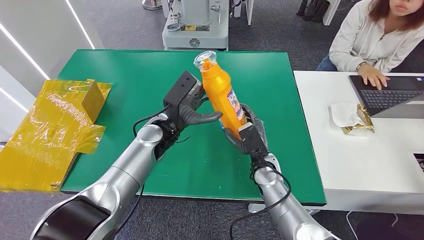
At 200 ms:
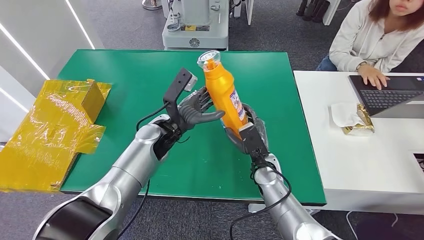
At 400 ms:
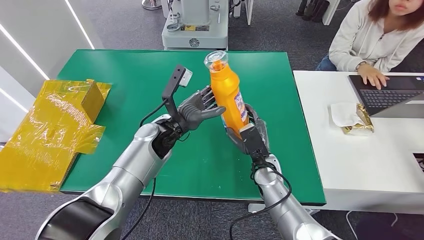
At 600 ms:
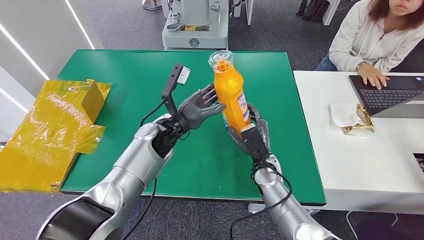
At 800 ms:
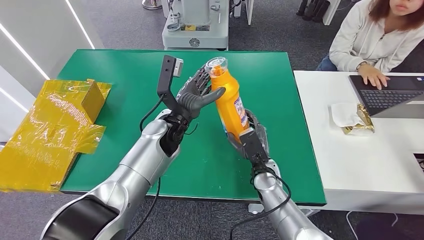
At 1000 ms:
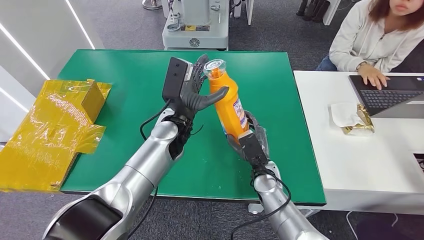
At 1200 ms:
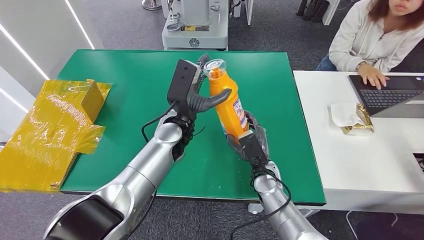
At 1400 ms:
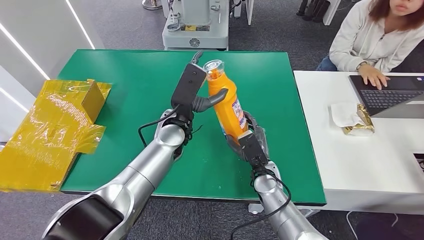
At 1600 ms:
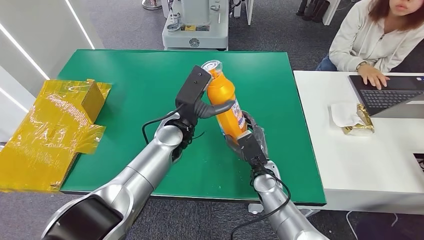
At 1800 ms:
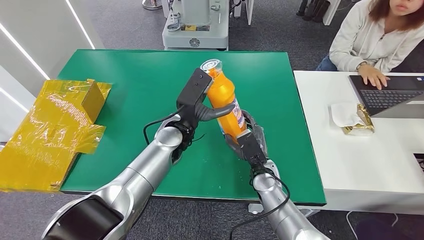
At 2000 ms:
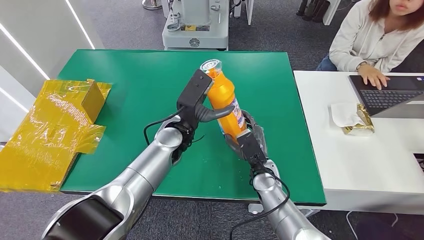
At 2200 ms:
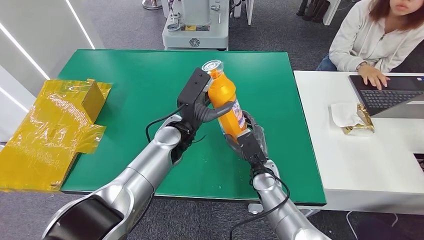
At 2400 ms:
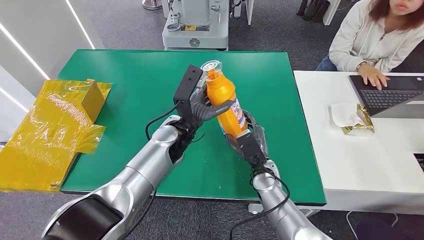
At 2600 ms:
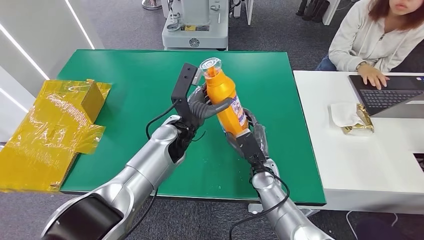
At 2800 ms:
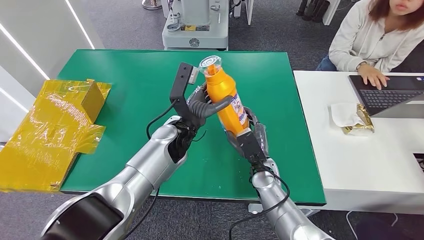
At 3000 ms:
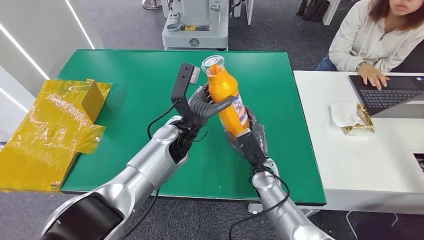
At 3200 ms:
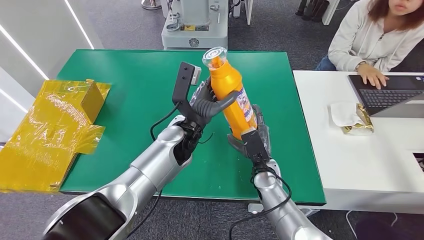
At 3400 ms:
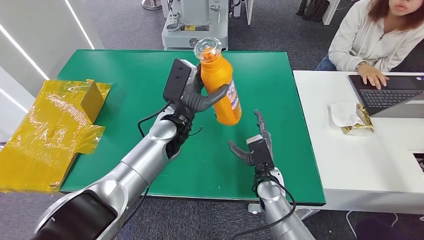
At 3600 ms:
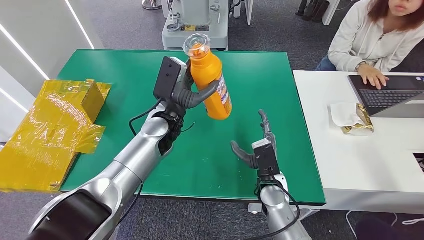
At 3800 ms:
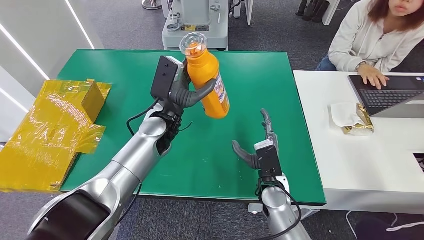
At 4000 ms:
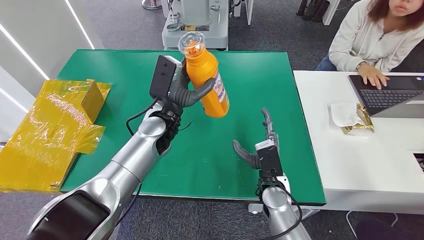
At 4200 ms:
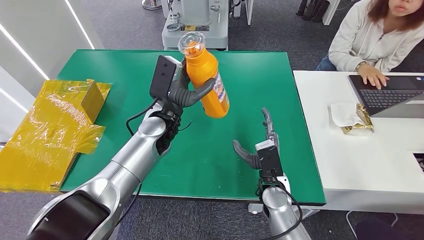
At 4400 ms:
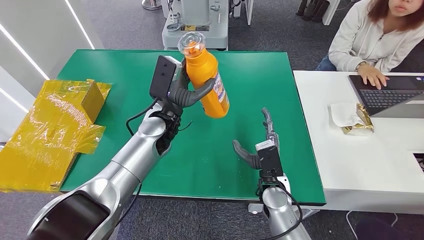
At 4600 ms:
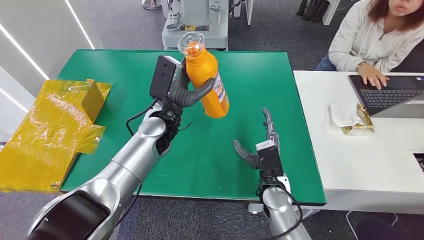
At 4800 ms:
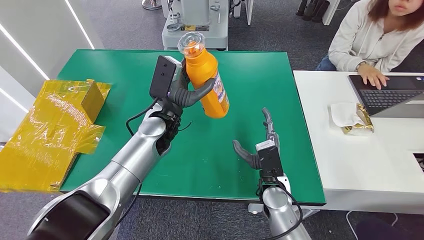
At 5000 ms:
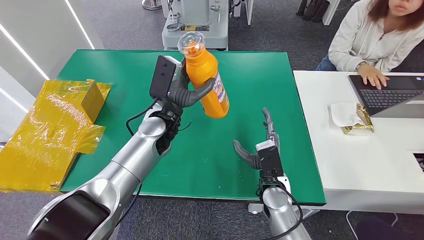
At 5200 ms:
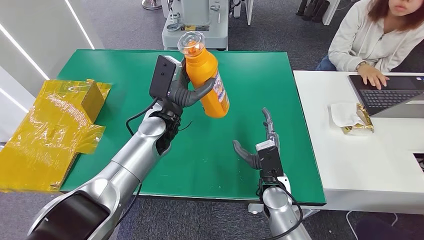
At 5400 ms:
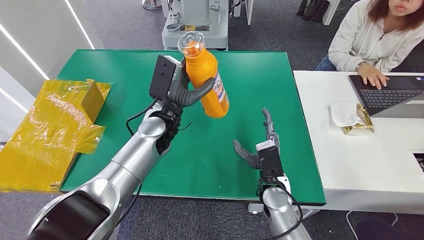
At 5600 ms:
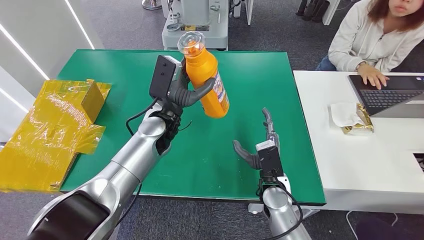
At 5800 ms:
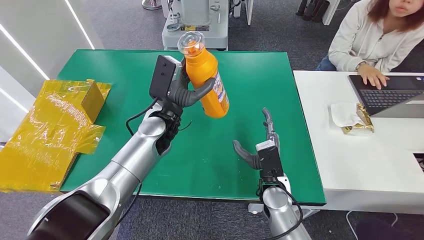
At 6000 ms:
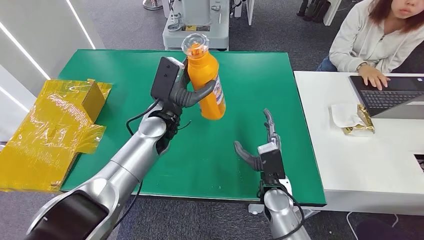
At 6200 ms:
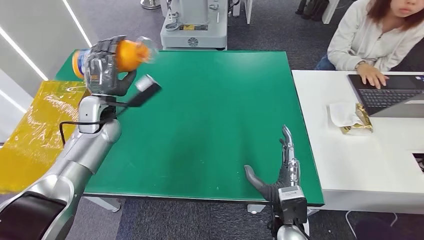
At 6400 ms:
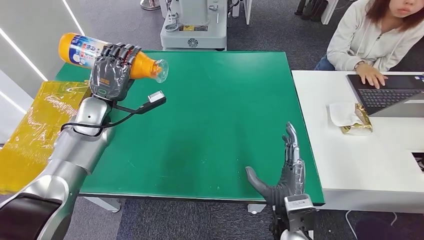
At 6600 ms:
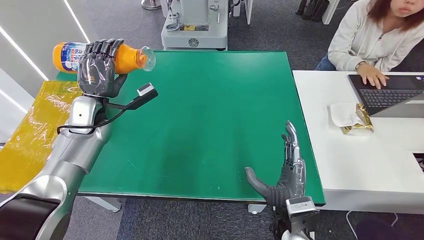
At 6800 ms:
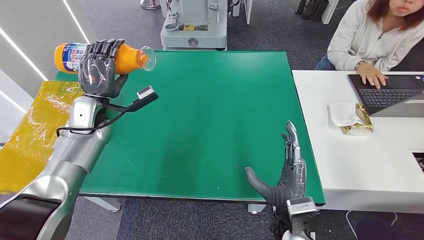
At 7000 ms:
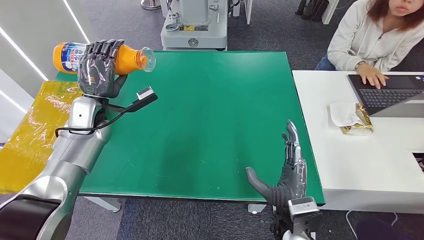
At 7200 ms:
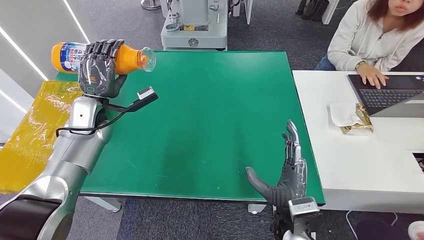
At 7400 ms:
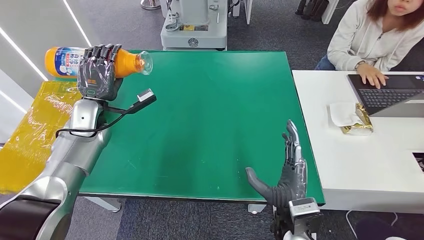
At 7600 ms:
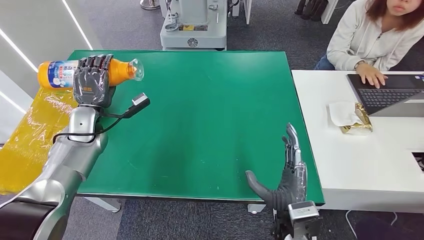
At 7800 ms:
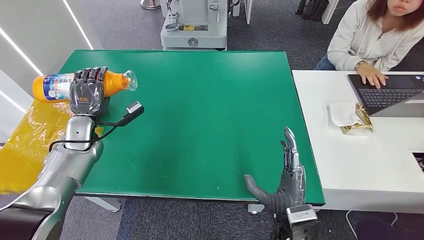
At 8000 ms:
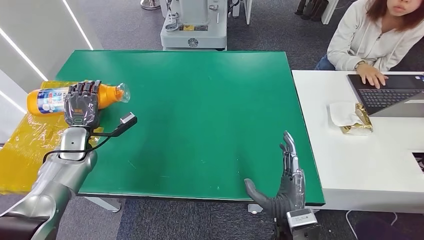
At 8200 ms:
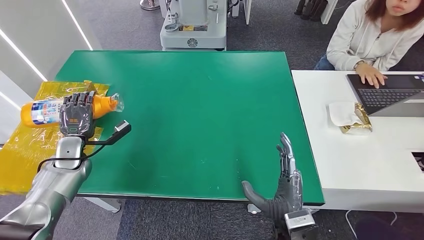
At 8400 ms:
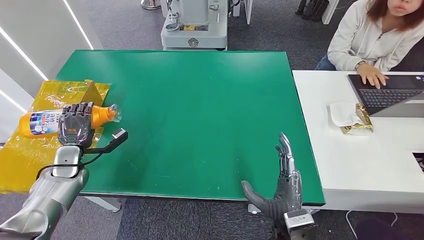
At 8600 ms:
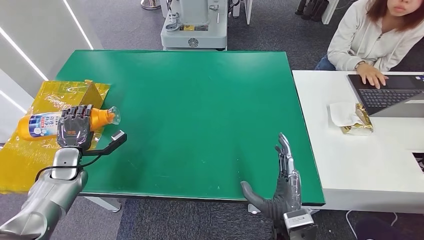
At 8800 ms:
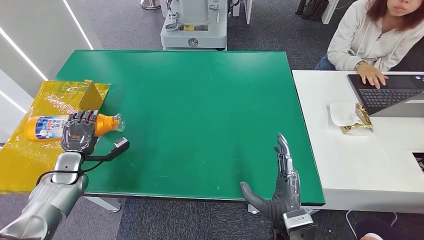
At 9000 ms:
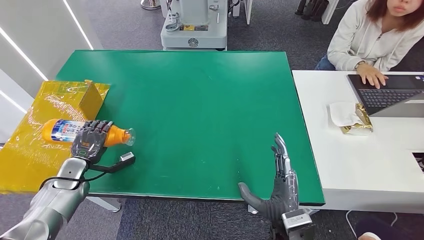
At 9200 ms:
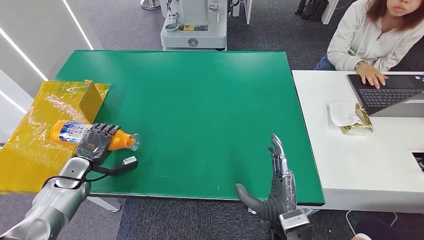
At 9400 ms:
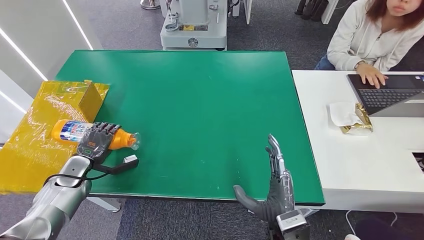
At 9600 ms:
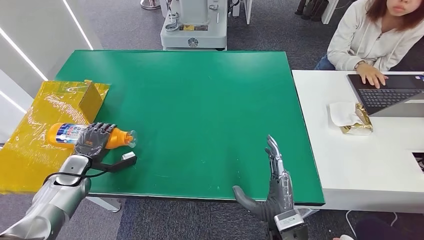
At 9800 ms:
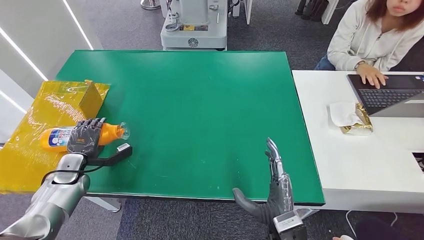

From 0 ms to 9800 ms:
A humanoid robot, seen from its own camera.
Step, from 0 ms to 9800 ms: Turn the bottle to the front side.
From 0 ms to 1400 ms: The left hand moves approximately 5 cm.
From 2800 ms to 4200 ms: The left hand ends up approximately 5 cm from where it was.
From 4200 ms to 5600 ms: The two hands keep their place.
From 7000 ms to 8400 ms: The left hand heads downward, to the left and backward, covering roughly 20 cm.

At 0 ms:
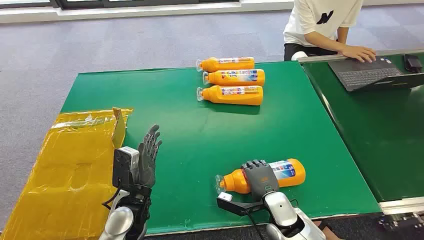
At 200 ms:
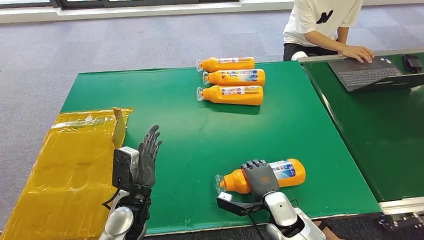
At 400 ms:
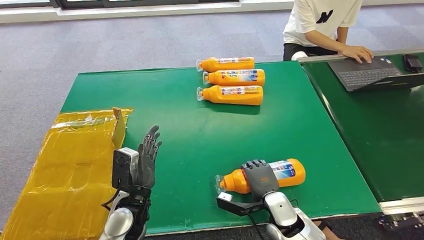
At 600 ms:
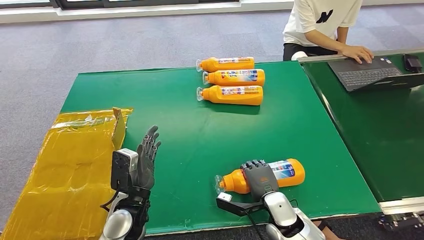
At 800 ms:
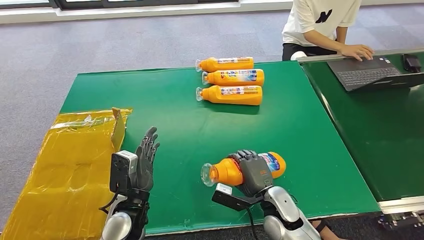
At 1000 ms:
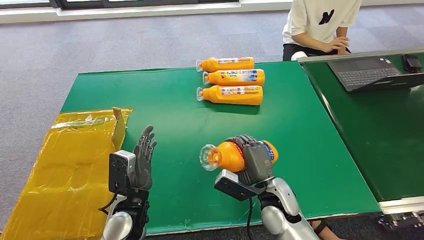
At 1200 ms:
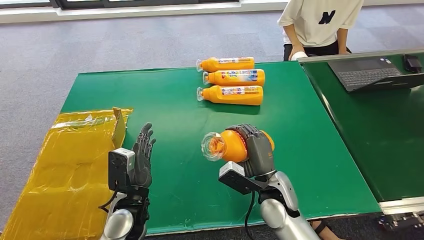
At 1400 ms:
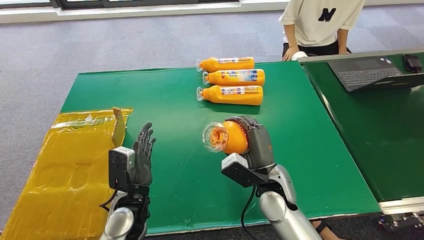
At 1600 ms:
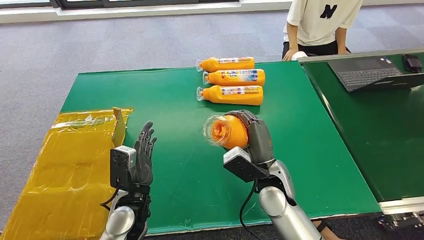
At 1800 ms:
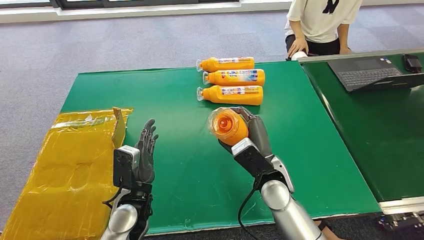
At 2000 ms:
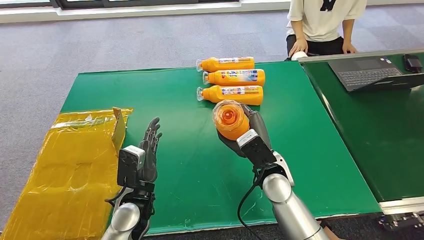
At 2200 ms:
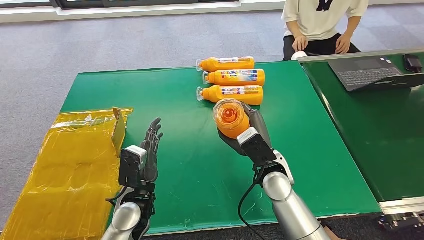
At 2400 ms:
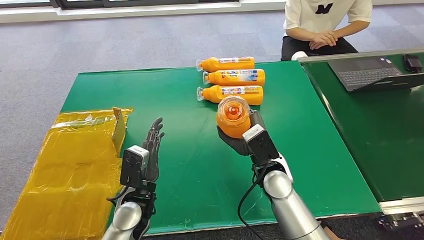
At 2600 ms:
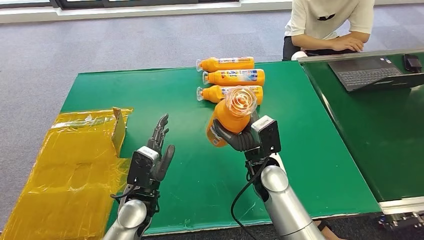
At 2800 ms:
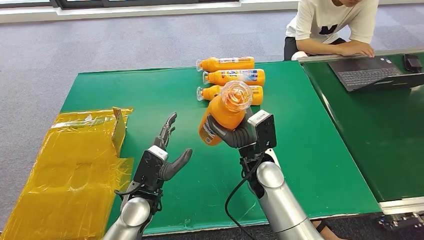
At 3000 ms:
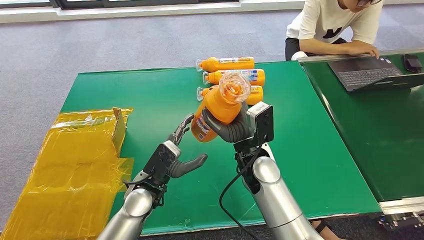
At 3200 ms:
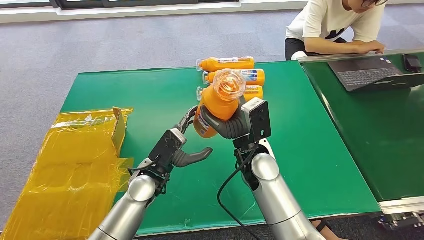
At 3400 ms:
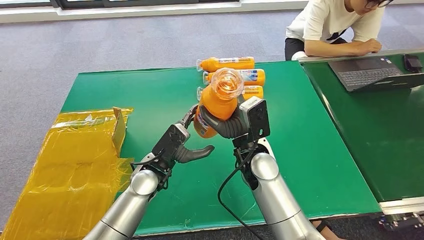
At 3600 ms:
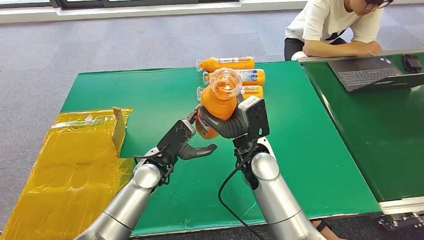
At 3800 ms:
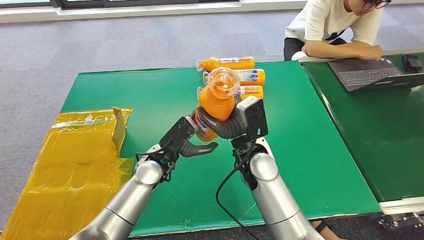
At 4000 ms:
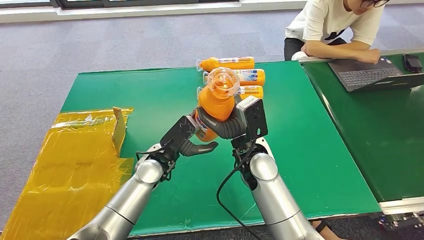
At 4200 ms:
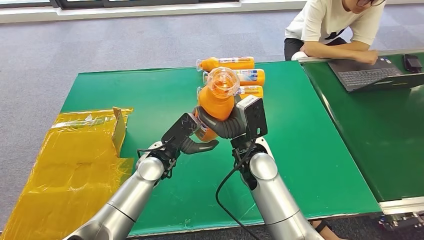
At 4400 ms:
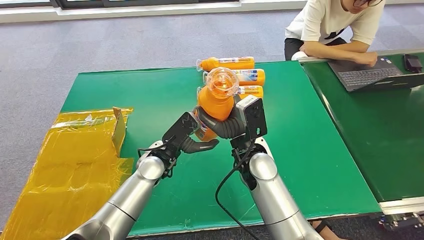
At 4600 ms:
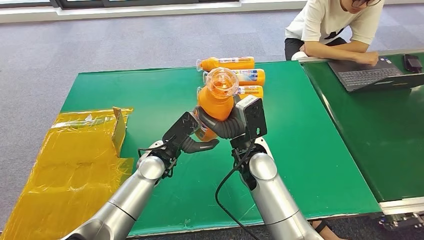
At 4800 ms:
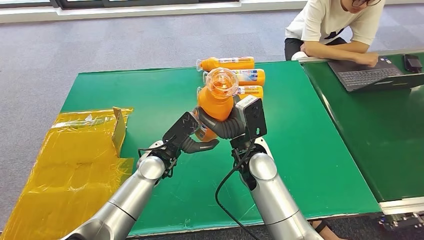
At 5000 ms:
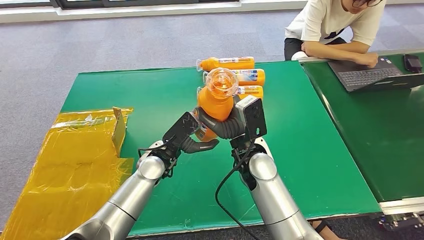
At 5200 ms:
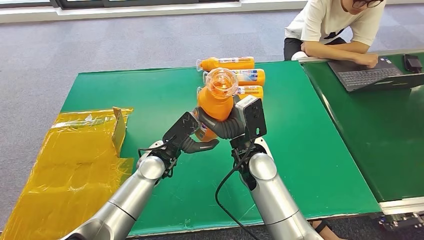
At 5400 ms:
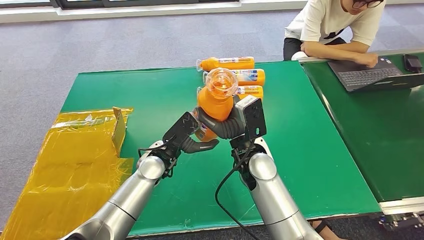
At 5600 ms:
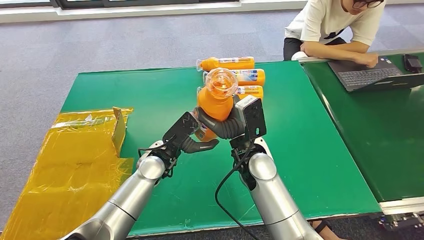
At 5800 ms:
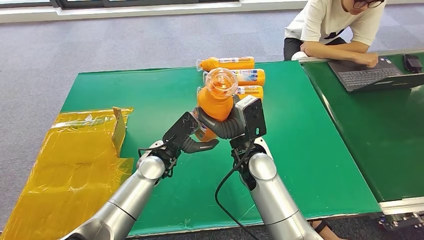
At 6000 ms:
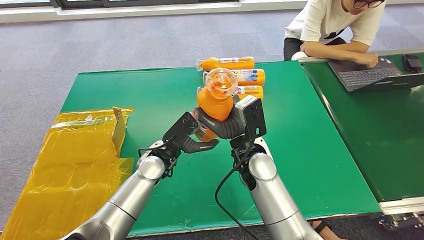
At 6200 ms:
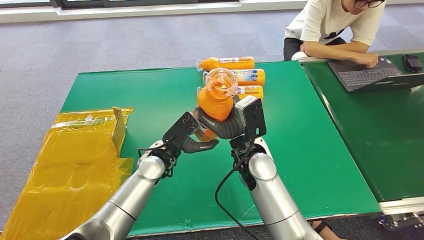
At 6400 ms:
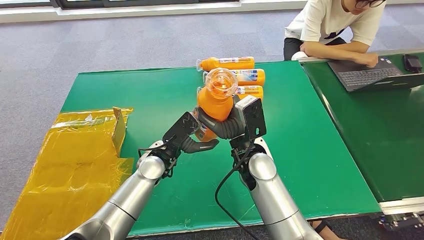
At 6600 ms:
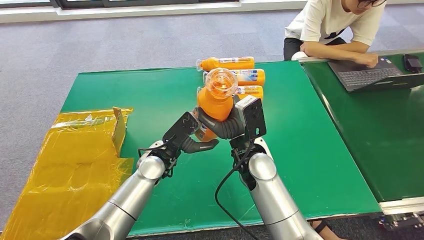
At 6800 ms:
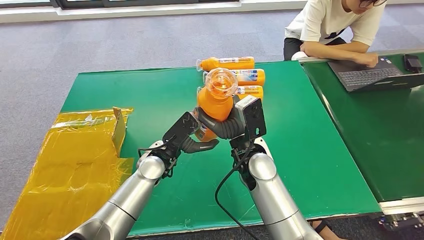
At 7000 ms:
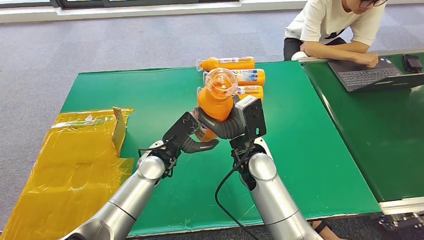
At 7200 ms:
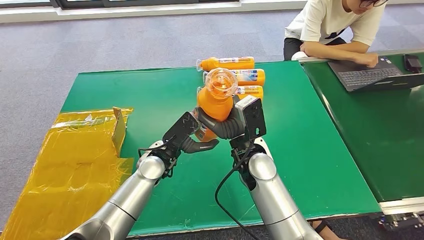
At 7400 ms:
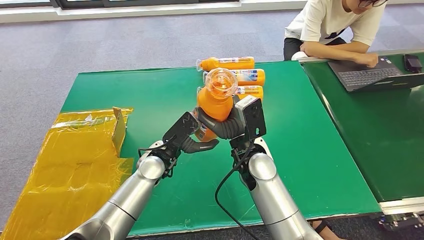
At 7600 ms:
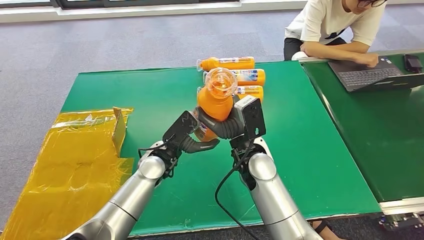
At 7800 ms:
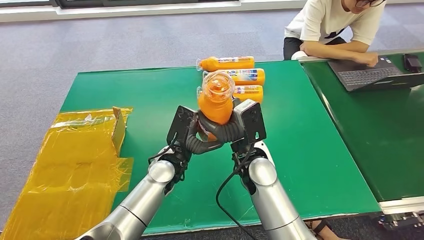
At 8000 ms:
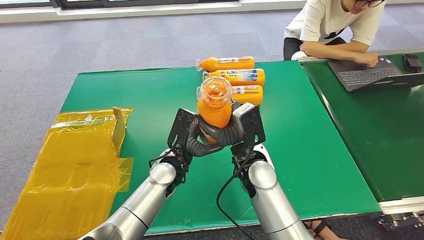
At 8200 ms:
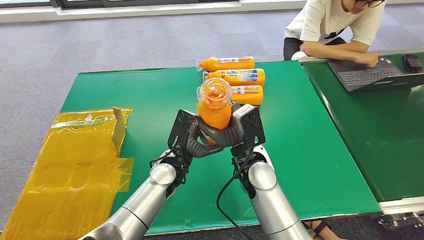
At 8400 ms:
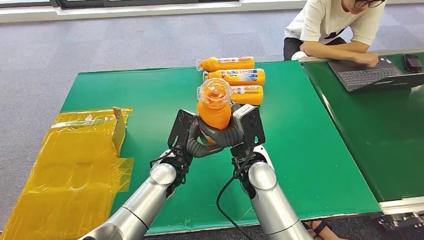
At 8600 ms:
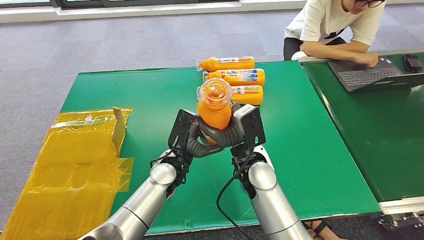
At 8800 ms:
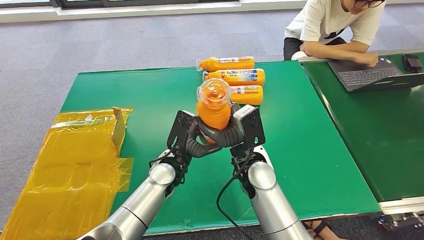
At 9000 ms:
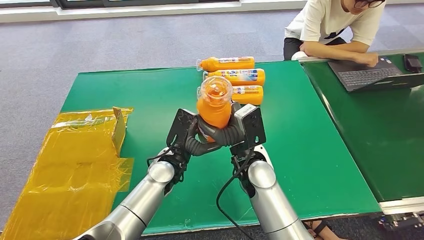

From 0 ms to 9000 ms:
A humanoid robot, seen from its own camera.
Step, from 0 ms to 1800 ms: Pick up the bottle from the table.
From 1600 ms to 3000 ms: The right hand moves roughly 5 cm, while the left hand shifts by approximately 5 cm.
From 3000 ms to 4400 ms: The left hand heads forward, covering about 5 cm.
From 4400 ms to 7600 ms: The two hands keep their place.
From 7600 ms to 9000 ms: The hands make only small movements.
